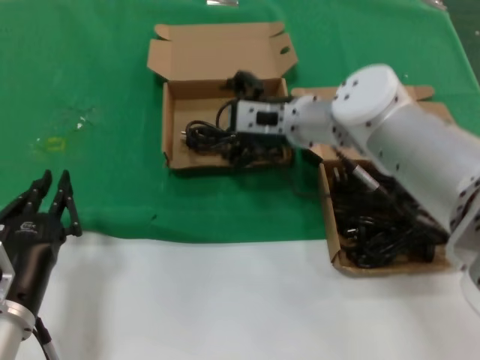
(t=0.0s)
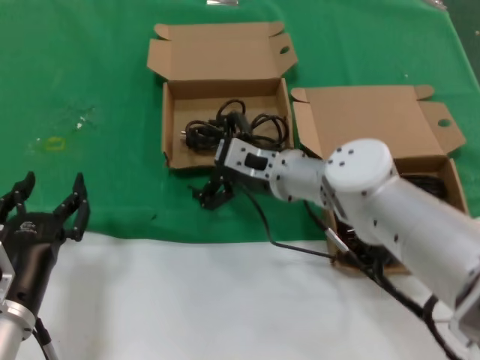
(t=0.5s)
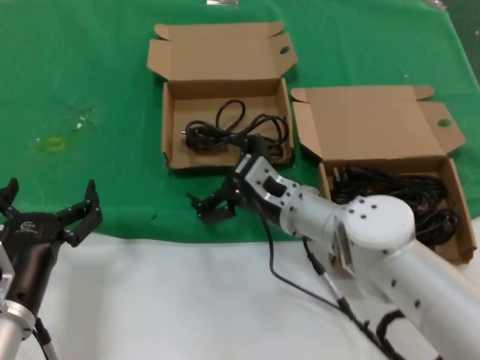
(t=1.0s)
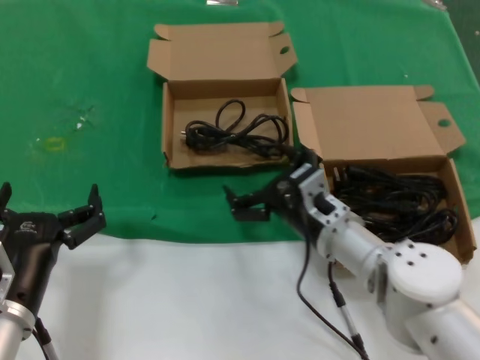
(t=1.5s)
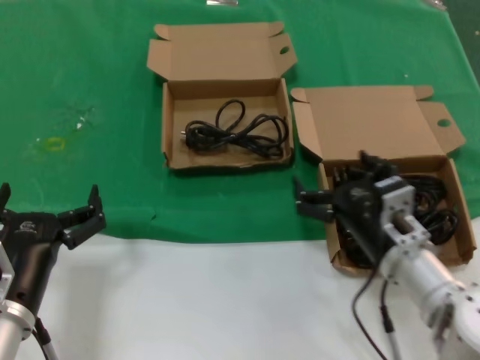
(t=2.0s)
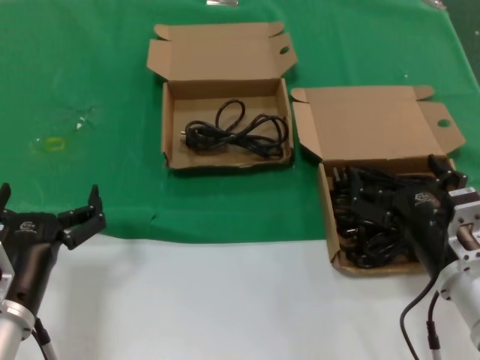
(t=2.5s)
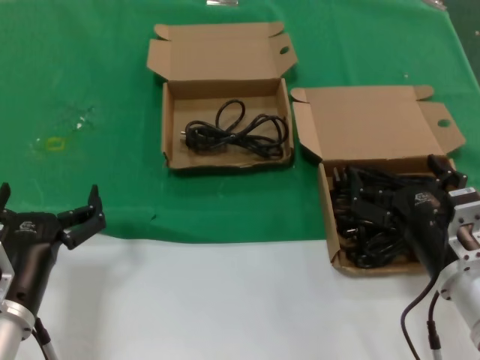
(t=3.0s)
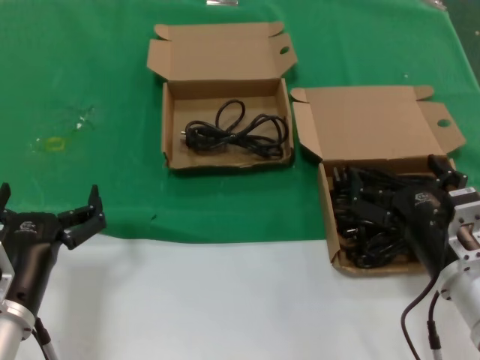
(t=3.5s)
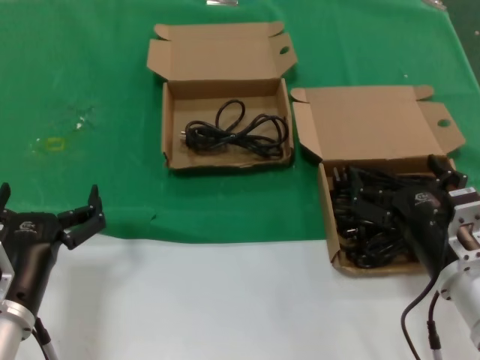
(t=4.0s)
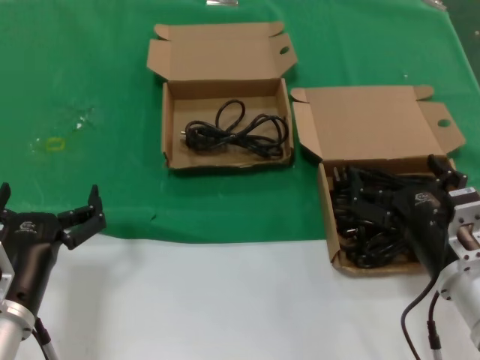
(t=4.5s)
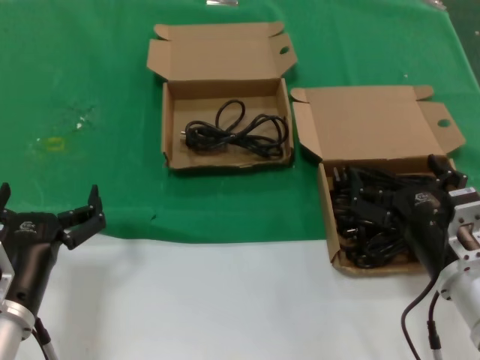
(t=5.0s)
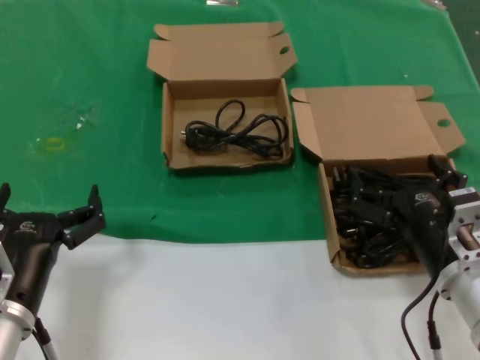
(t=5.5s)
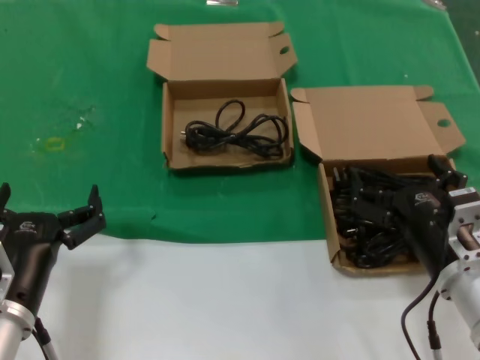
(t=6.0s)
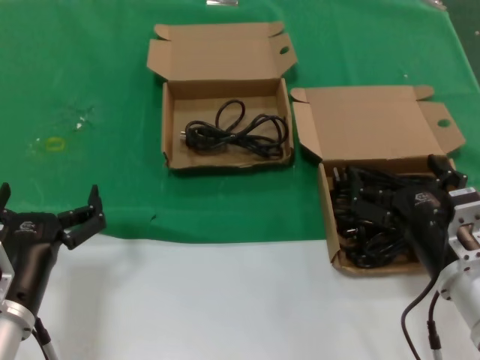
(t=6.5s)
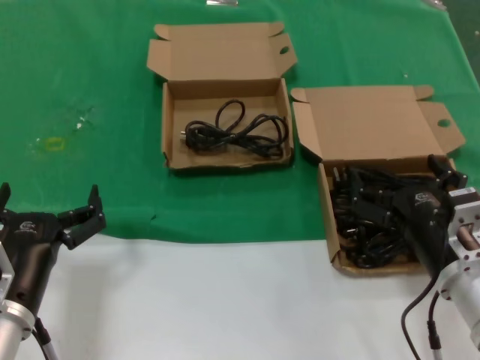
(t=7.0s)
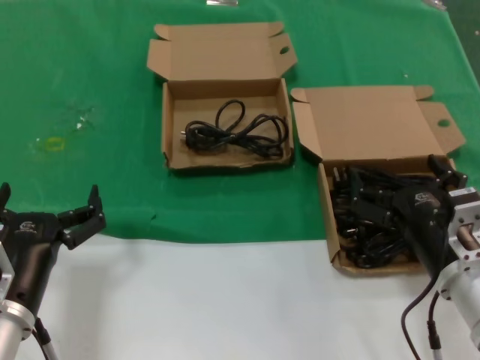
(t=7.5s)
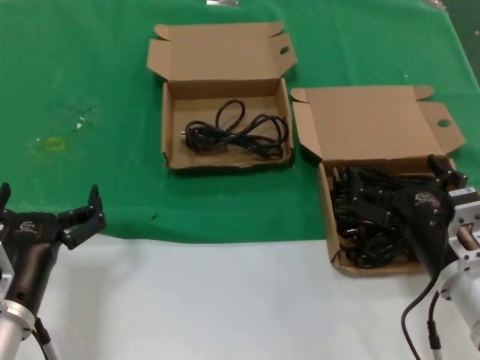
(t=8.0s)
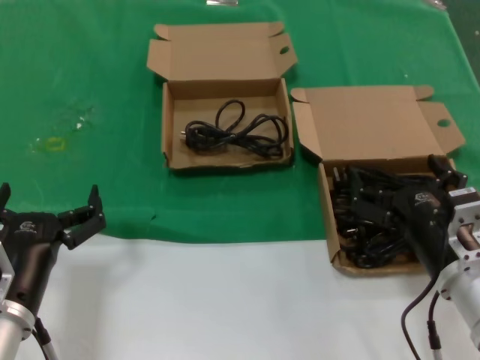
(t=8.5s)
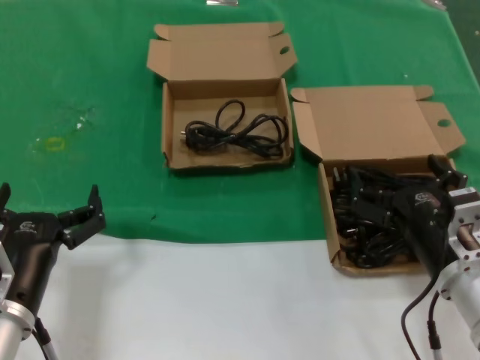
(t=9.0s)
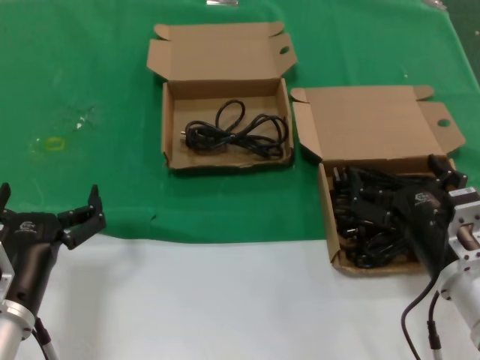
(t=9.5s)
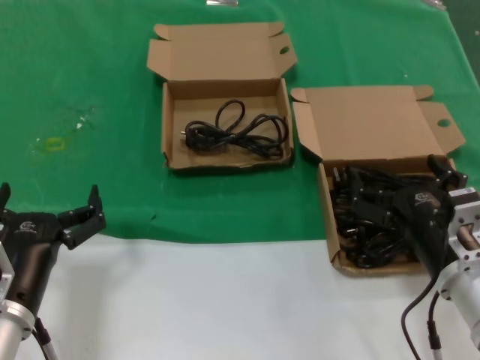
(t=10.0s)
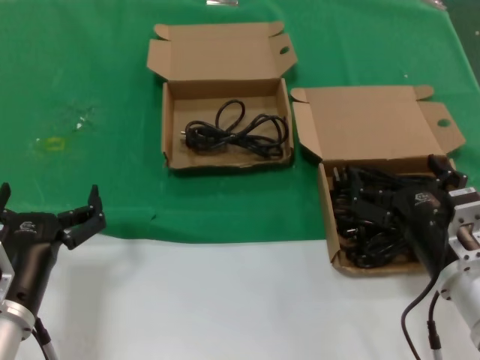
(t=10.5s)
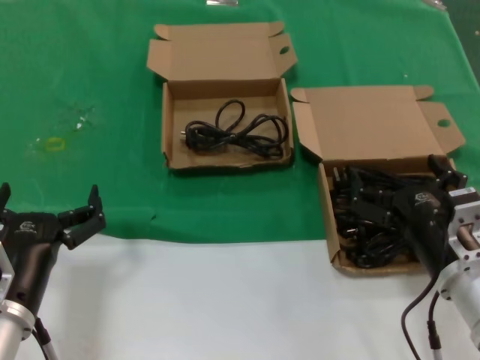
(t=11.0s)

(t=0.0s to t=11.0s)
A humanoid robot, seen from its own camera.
Task of the whole recording: take the parts from the box containing them and put them into an empty box.
t=0.0s - t=2.0s: The right hand heads backward, downward and to the right, covering approximately 25 cm.
t=2.0s - t=3.5s: The right hand ends up roughly 5 cm from where it was.
t=3.5s - t=11.0s: Neither hand changes place.

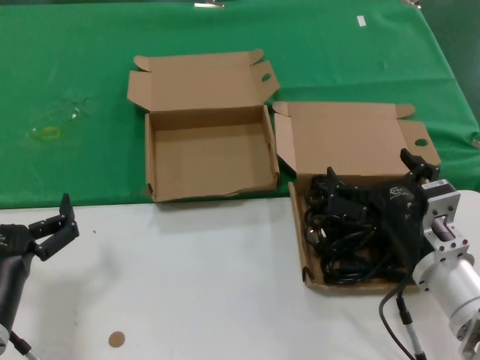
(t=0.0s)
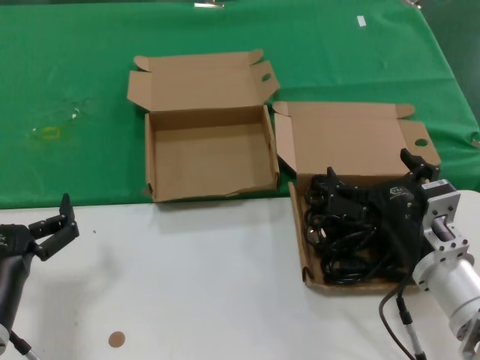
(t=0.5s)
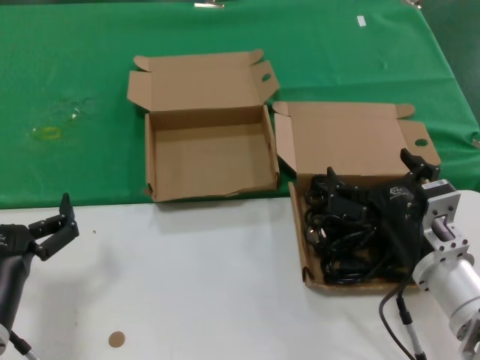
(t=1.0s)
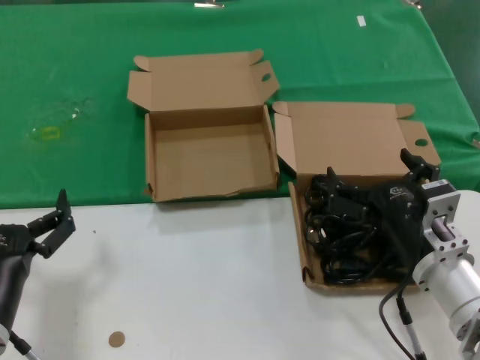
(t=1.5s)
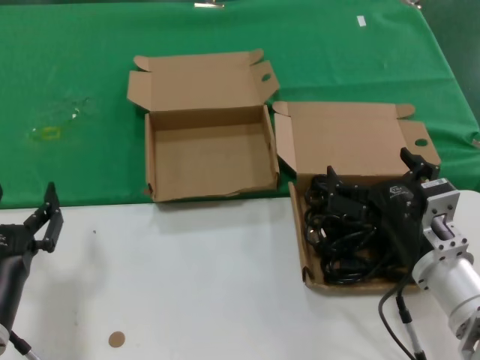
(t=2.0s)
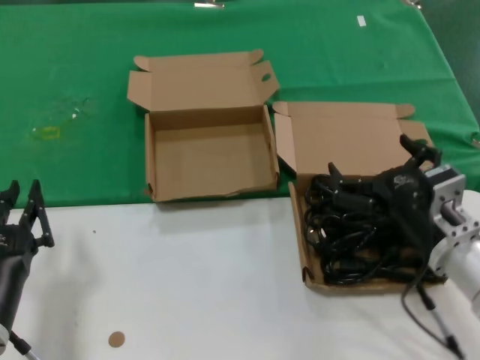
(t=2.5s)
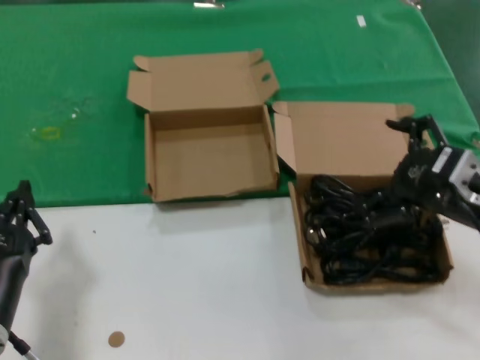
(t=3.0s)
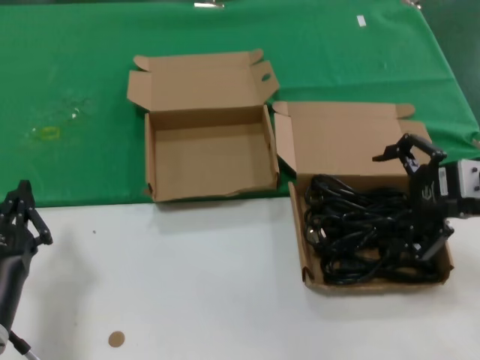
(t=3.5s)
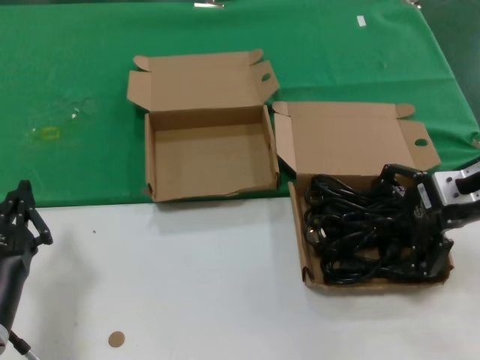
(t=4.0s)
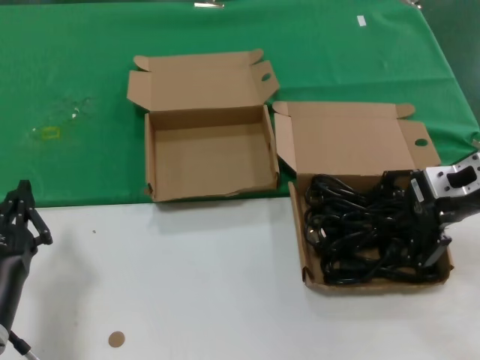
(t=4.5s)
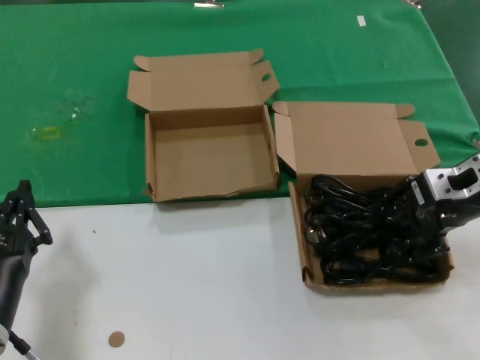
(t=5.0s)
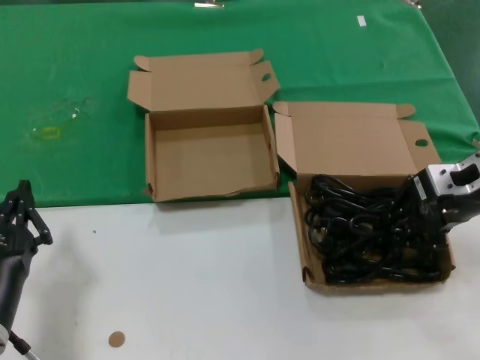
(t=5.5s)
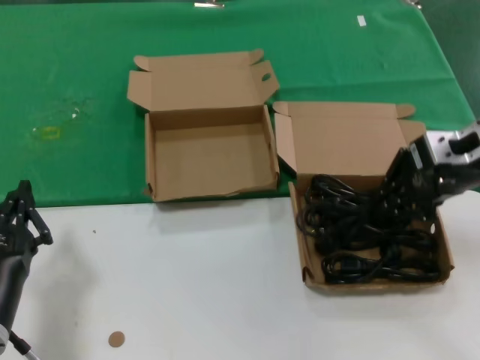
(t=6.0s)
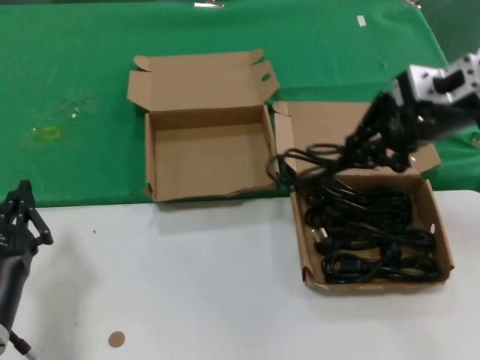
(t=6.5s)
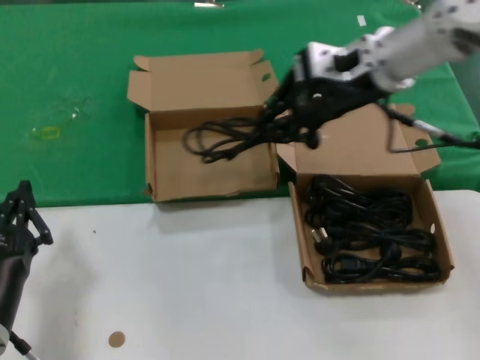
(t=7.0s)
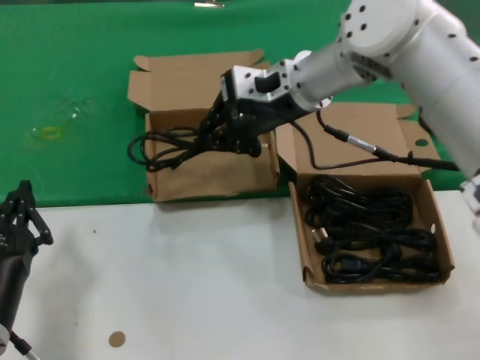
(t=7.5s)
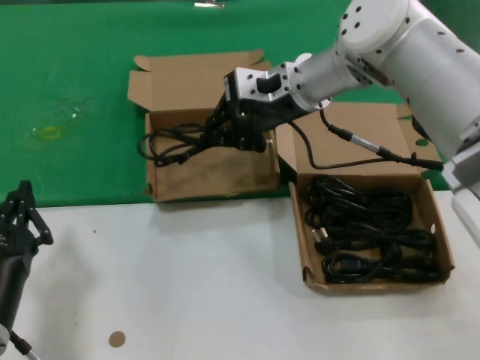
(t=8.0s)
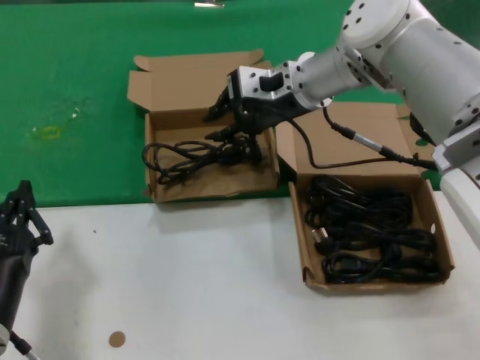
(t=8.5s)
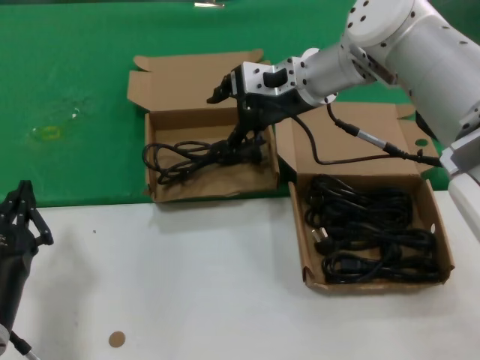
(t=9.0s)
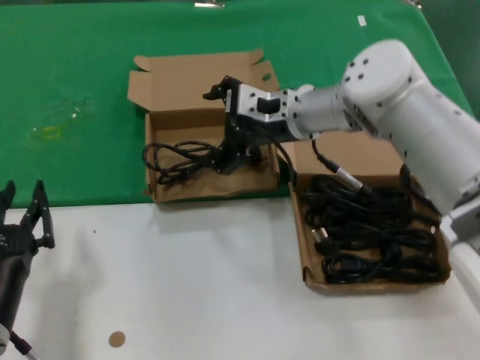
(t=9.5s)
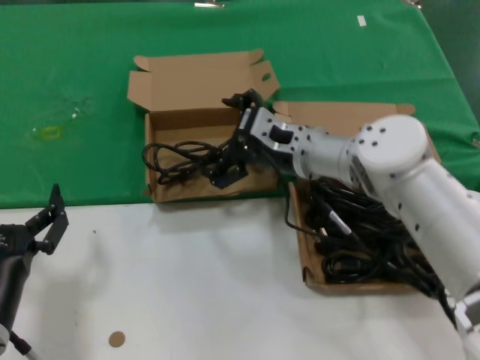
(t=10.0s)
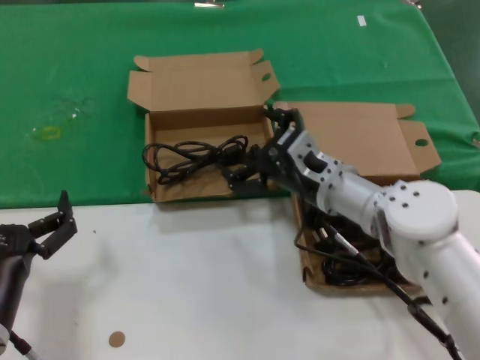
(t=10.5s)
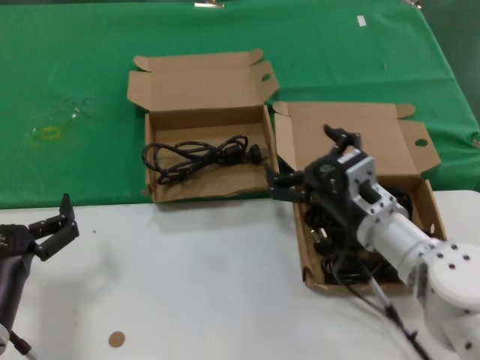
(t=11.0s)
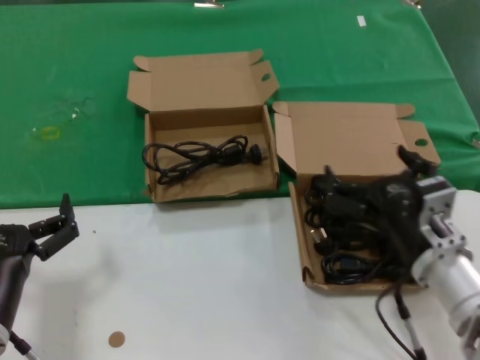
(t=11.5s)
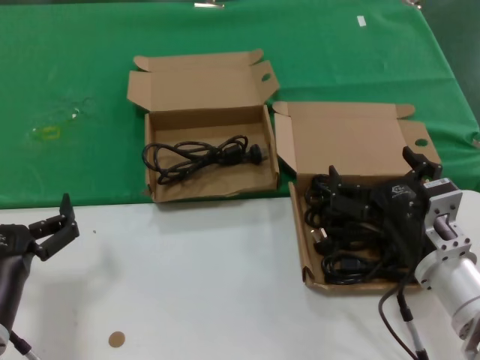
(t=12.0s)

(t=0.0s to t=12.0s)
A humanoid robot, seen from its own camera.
Task of the whole recording: take the parts from the box containing them and put them into an empty box.
Step, t=0.0s - t=5.5s: Grasp the data cable.
Step, t=6.0s - t=8.0s: Place the data cable in the another box.
t=0.0s - t=2.0s: Both hands stay put.
t=2.0s - t=4.0s: The right hand heads upward, to the right and forward, covering about 20 cm.
t=4.0s - t=6.0s: There are only small adjustments of the hands.
t=6.0s - t=8.0s: The right hand heads to the left and forward, covering about 25 cm.
t=8.0s - t=10.0s: The right hand is displaced downward by roughly 10 cm.
t=10.0s - t=12.0s: The right hand moves backward, to the right and downward, some 25 cm.

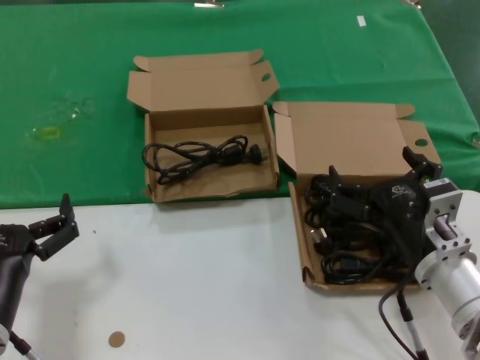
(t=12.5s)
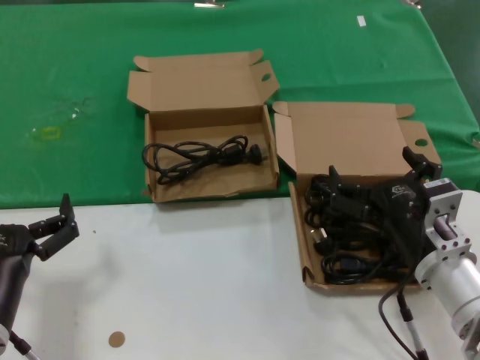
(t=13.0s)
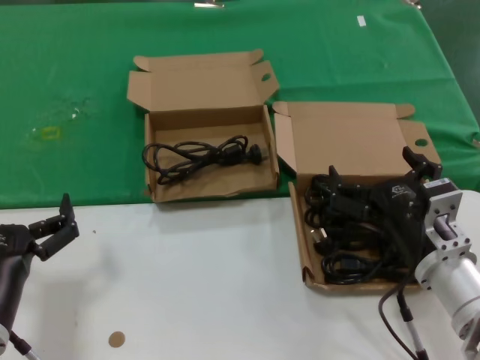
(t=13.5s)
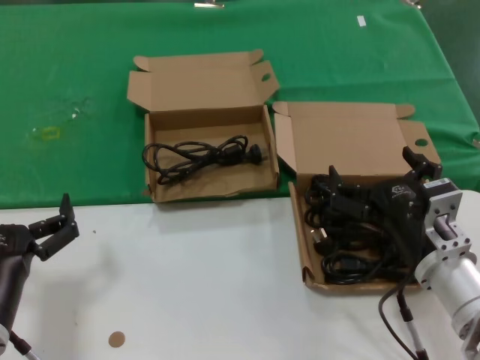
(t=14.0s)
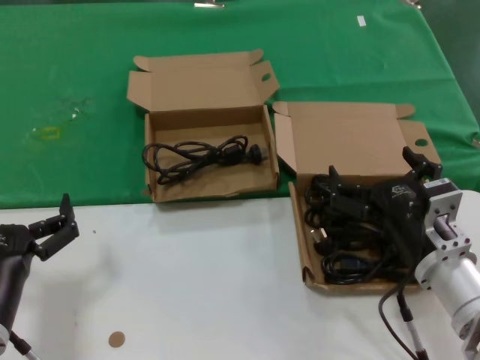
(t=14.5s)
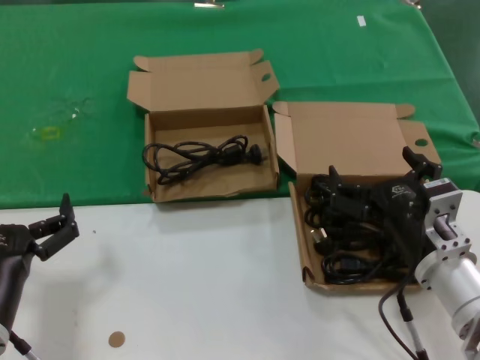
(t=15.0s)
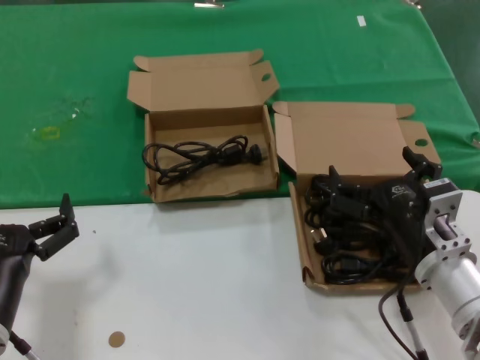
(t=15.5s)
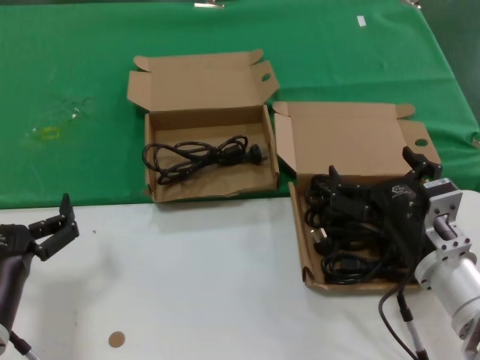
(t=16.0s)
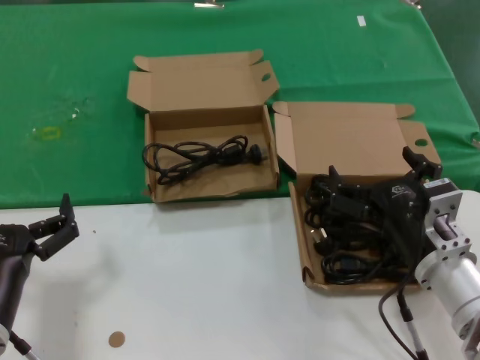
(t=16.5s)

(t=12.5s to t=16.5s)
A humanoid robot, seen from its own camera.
Task of the whole recording: take the parts from the box containing them and put them into an empty box.
t=12.5s - t=16.5s: Both hands stay put.
